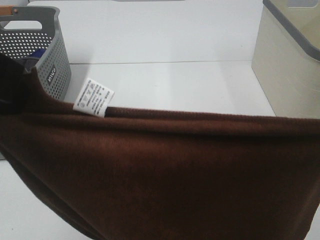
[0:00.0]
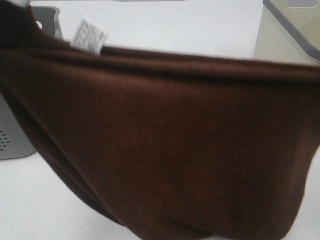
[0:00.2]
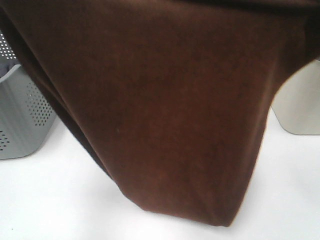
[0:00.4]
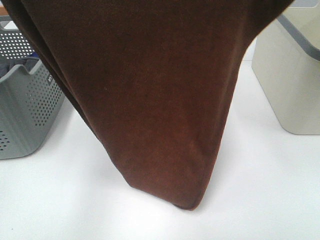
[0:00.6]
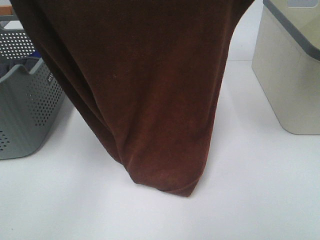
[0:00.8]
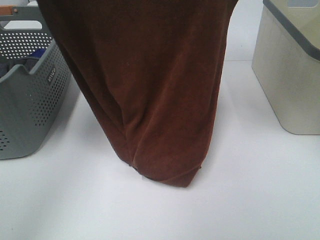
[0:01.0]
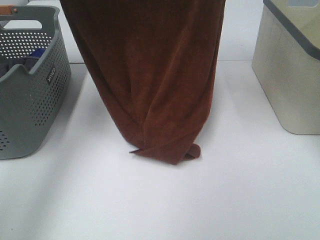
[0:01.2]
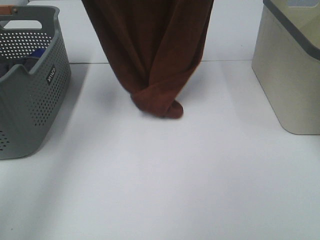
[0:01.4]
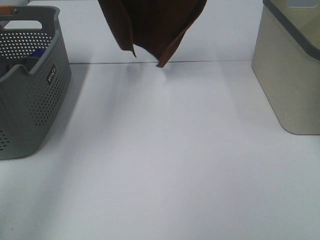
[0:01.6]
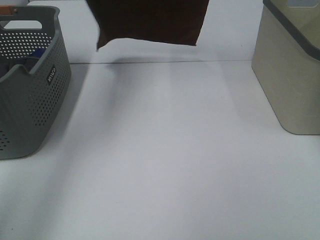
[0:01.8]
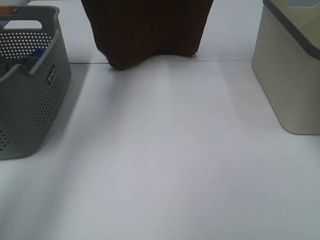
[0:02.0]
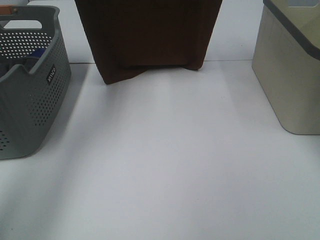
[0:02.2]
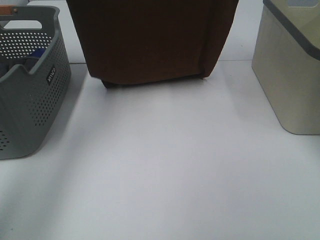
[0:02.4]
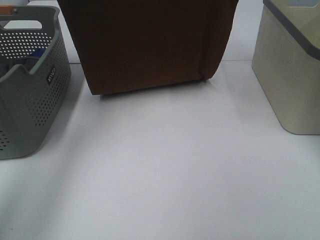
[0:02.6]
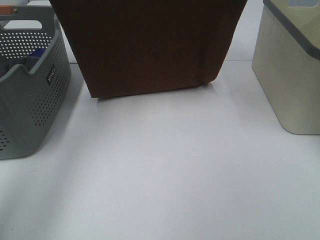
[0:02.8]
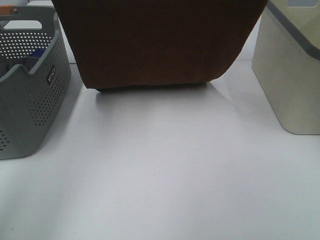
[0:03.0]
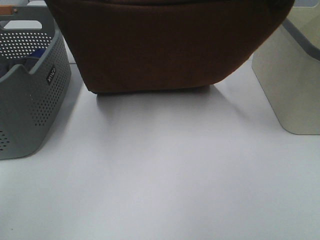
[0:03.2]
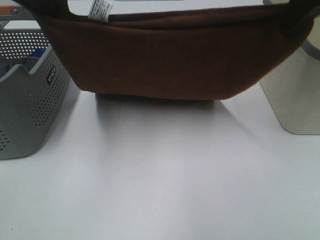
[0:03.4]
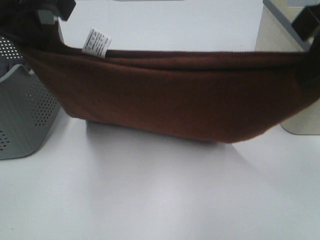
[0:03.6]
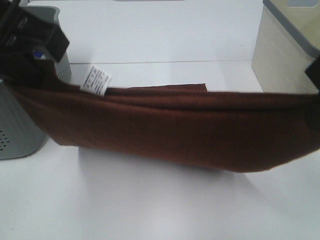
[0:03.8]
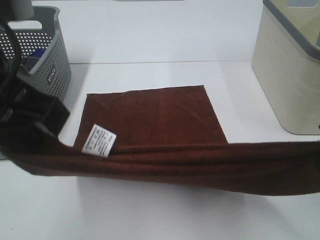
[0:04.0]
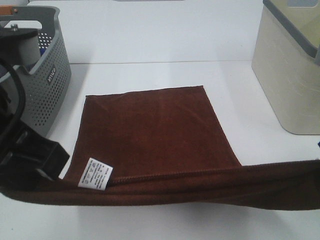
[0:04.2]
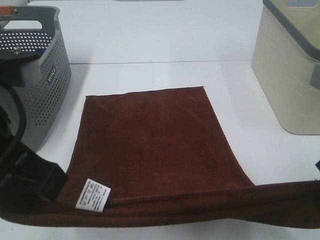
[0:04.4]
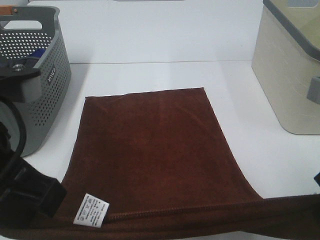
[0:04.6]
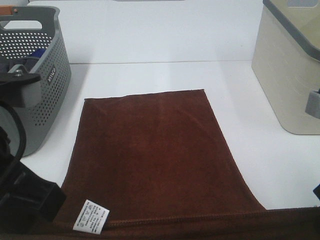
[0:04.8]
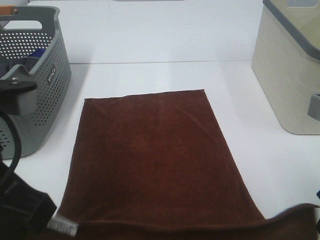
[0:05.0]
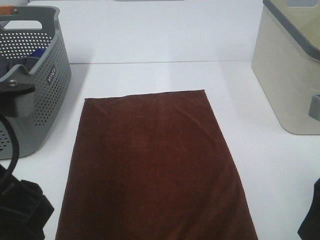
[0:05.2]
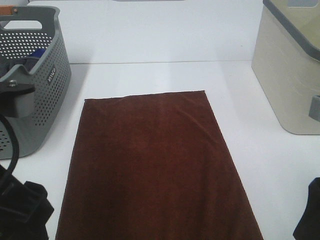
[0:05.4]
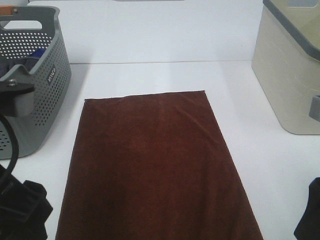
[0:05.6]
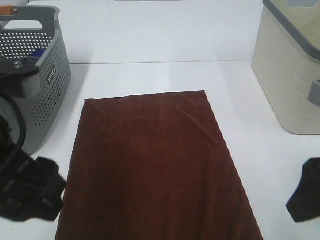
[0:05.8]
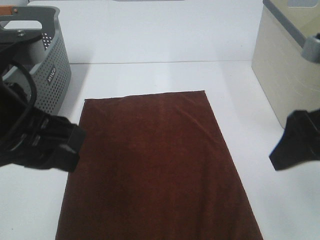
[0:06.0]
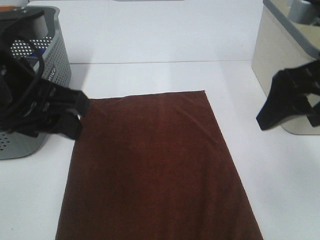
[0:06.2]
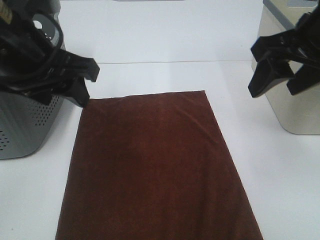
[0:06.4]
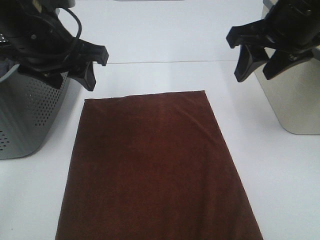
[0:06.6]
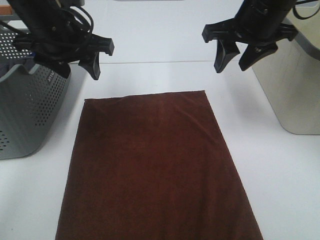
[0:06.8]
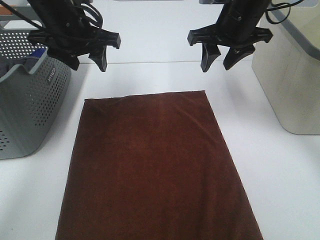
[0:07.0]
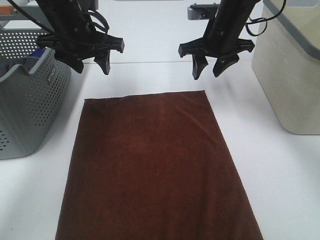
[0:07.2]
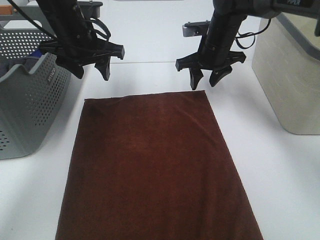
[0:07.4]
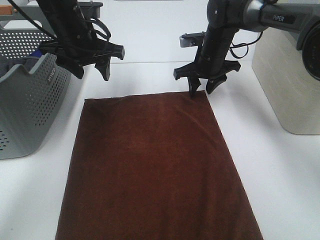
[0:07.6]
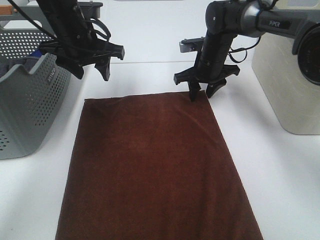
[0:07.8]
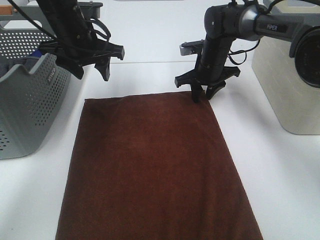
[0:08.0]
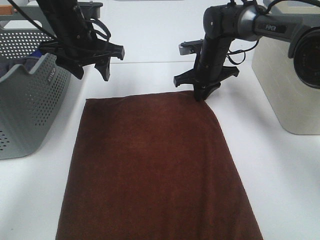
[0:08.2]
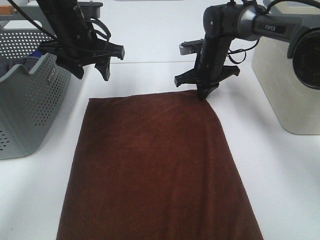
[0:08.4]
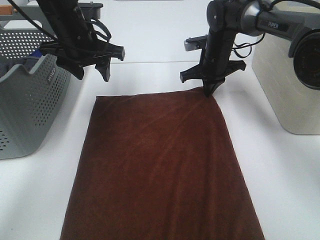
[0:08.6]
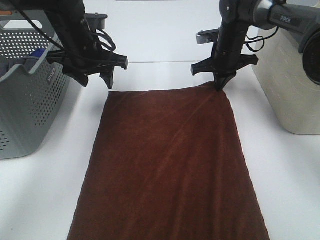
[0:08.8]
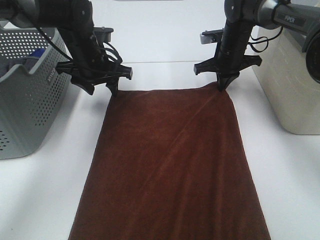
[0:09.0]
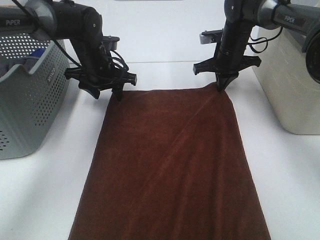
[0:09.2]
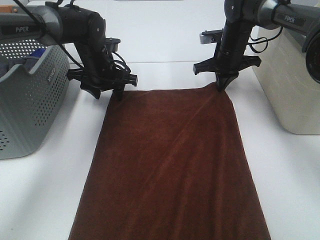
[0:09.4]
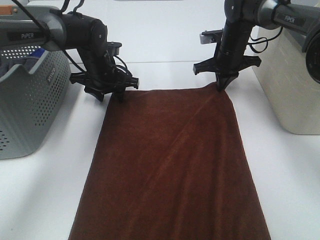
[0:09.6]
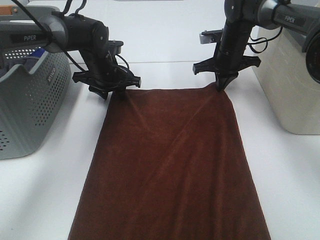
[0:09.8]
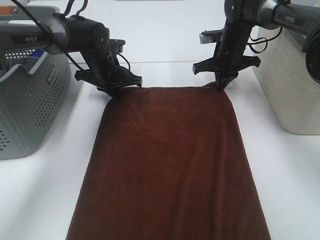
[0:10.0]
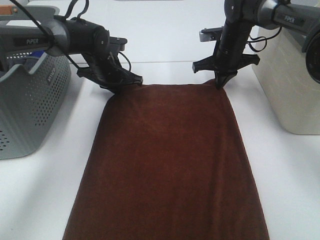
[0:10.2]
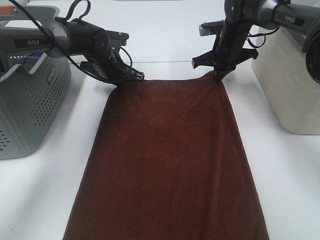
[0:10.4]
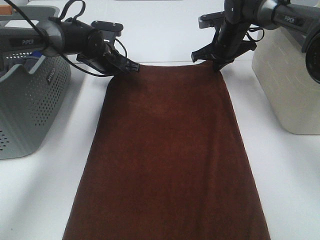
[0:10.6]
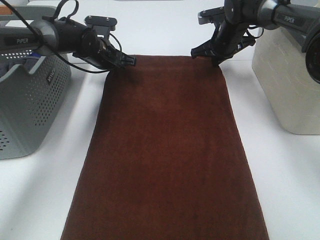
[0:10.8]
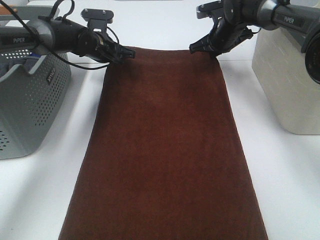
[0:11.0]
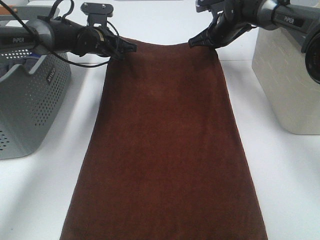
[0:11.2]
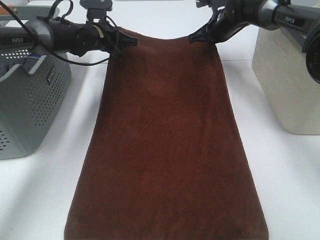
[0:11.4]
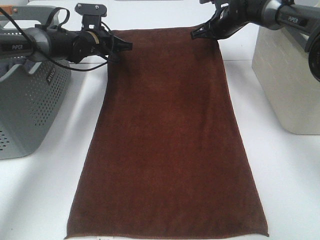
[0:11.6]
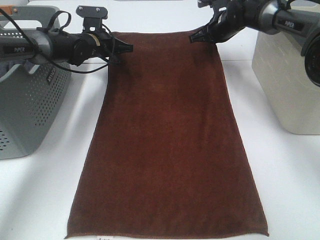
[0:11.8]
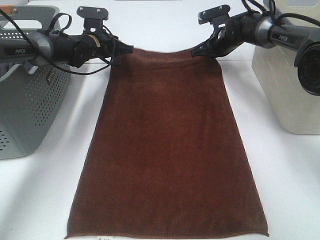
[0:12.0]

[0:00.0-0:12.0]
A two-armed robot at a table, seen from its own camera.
Task of the whole recording: Remove the towel and place it.
Step, 0:01.4 to 0:06.6: Left hand:adjust the brown towel.
Step, 0:01.4 to 0:06.6: Right hand:adjust the brown towel.
0:00.0 to 0:01.6: The two grippers go approximately 35 cm forward and upward.
0:01.6 to 0:03.0: Both grippers move downward, roughly 15 cm.
0:03.0 to 0:04.4: Both grippers travel together backward and downward, roughly 25 cm.
0:04.4 to 0:06.0: The left gripper opens its fingers; the right gripper opens up.
0:06.0 to 0:07.6: The left gripper travels forward by approximately 25 cm. The right gripper travels forward and downward by some 35 cm, and closes its fingers.
0:07.6 to 0:09.0: The right gripper changes place by approximately 5 cm, and closes. The left gripper heads downward, covering about 5 cm.
0:09.0 to 0:10.4: The left gripper travels forward by roughly 5 cm, and closes.
0:10.4 to 0:12.0: The right gripper moves roughly 5 cm, while the left gripper ends up approximately 5 cm from where it was, and opens up.

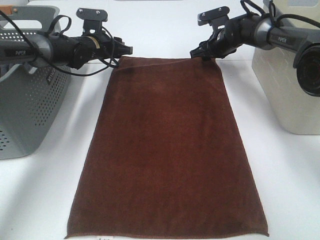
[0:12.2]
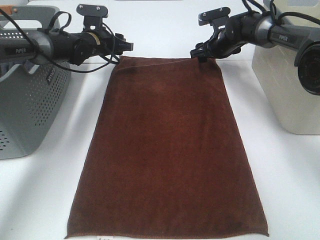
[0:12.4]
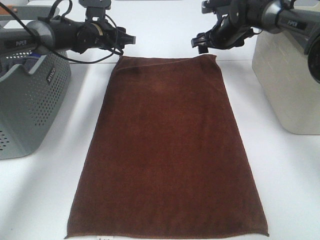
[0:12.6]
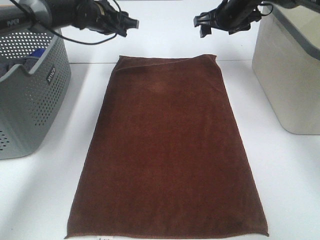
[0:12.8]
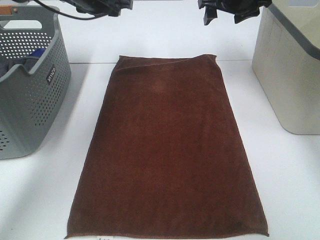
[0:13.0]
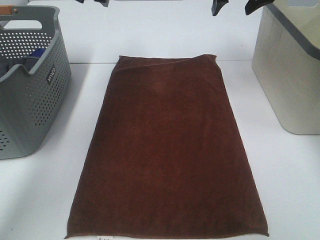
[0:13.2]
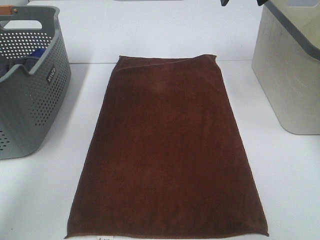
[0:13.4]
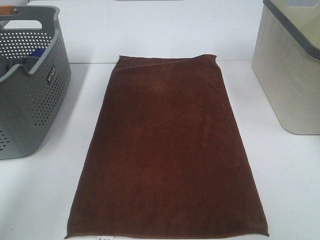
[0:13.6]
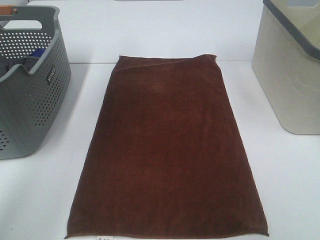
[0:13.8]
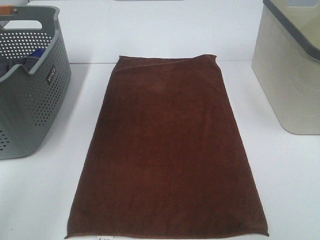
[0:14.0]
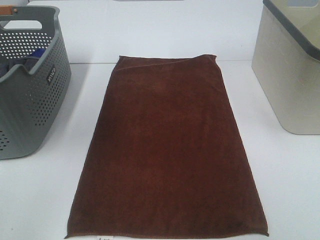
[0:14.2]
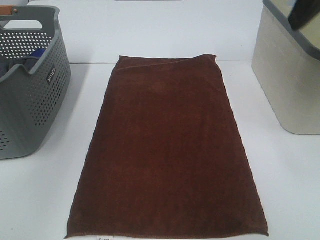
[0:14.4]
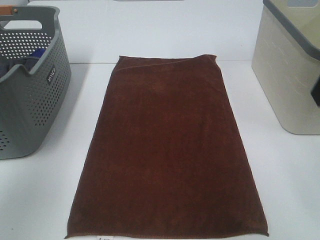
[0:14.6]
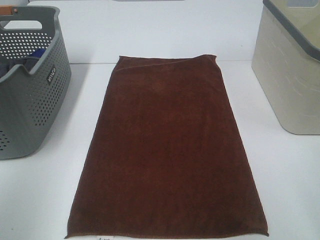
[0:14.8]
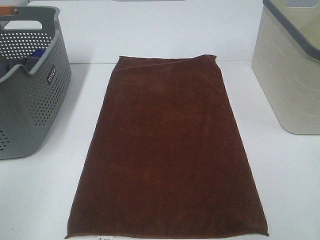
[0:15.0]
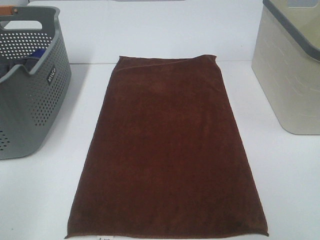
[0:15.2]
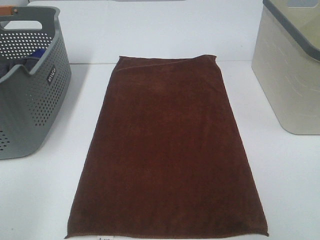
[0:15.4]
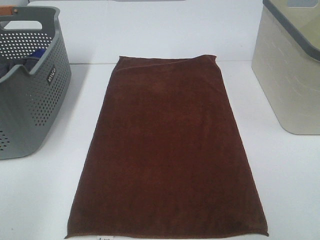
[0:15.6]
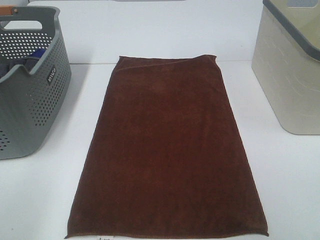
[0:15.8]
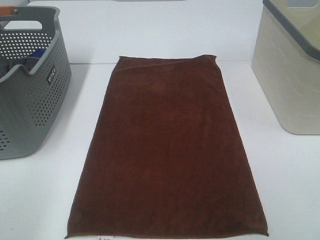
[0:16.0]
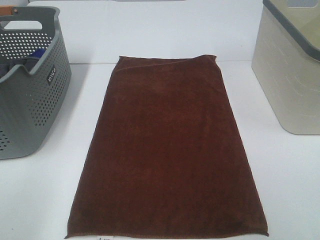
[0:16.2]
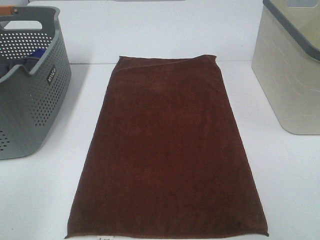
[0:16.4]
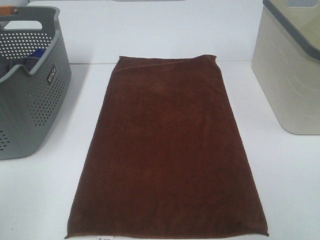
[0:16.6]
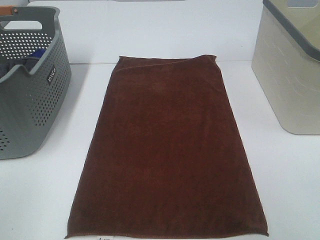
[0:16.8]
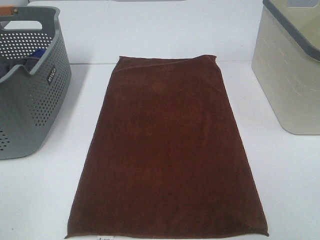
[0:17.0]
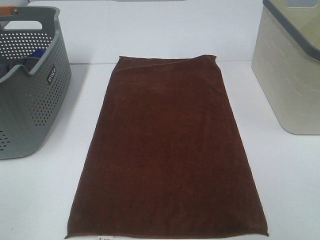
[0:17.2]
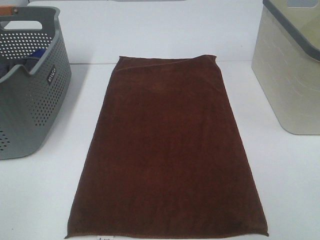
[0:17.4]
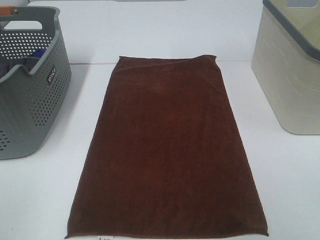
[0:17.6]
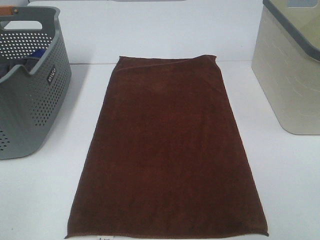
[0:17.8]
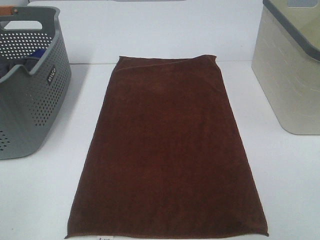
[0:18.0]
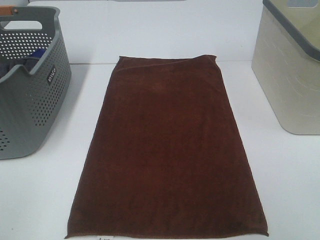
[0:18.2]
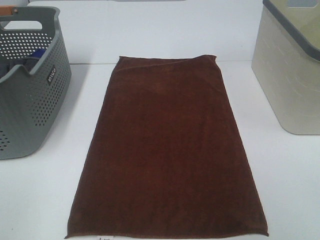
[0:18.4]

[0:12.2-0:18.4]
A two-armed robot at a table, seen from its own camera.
Task of the whole recording: Remove the towel and place it.
0:12.2 to 0:13.8: The grippers both shift upward and backward by roughly 35 cm.
0:13.8 to 0:15.4: The left gripper heads backward, covering approximately 35 cm.

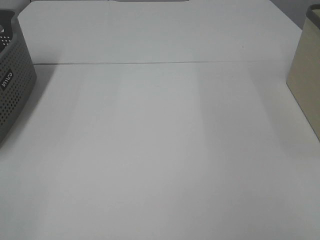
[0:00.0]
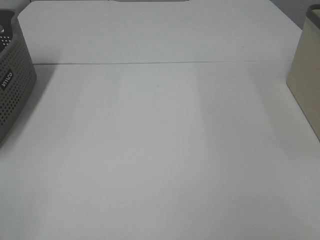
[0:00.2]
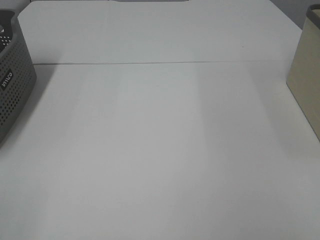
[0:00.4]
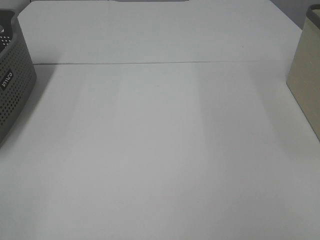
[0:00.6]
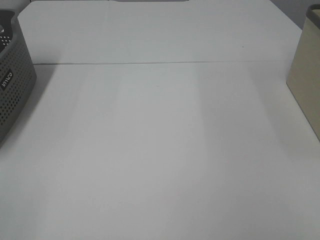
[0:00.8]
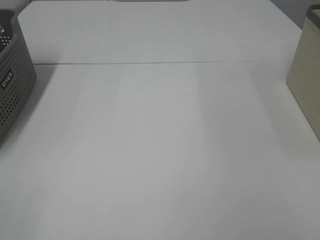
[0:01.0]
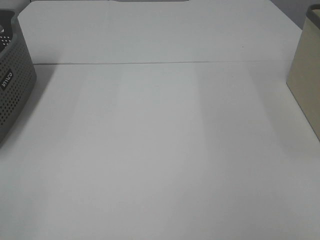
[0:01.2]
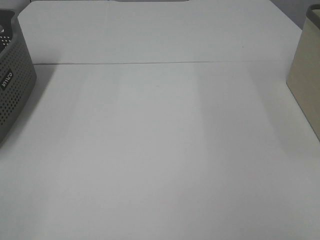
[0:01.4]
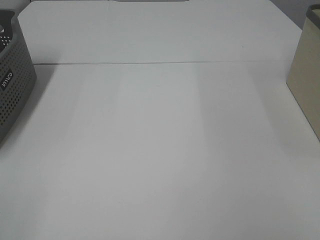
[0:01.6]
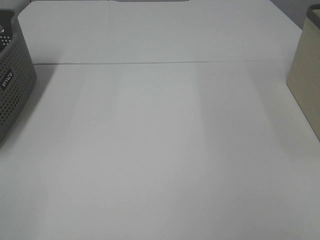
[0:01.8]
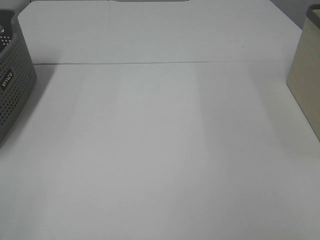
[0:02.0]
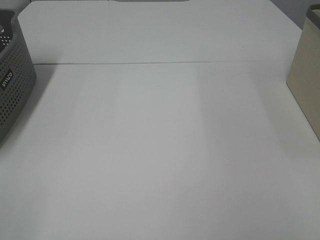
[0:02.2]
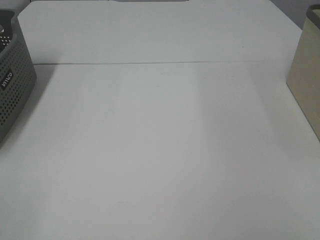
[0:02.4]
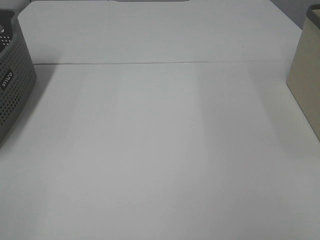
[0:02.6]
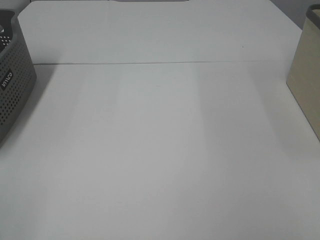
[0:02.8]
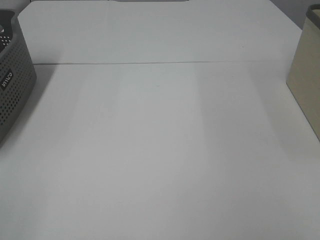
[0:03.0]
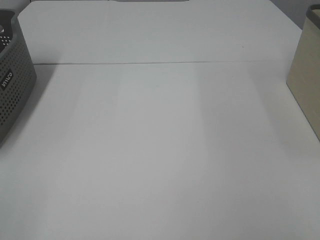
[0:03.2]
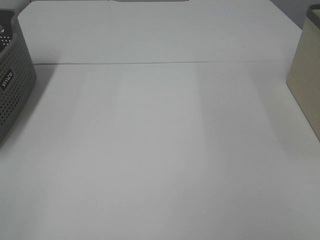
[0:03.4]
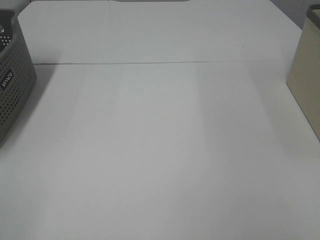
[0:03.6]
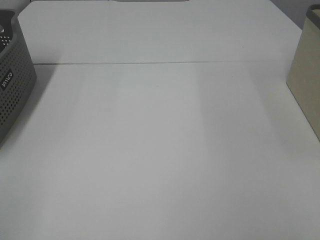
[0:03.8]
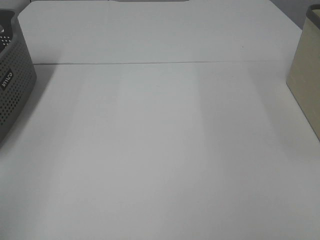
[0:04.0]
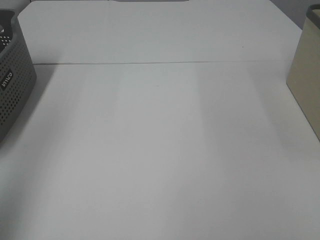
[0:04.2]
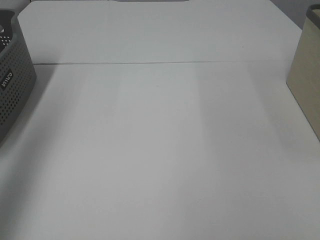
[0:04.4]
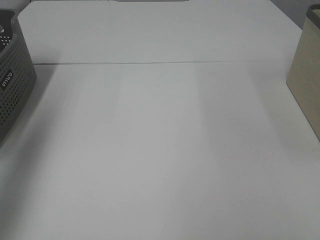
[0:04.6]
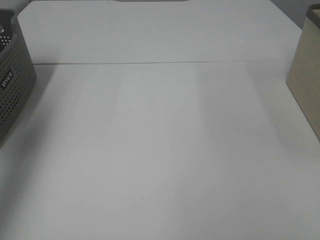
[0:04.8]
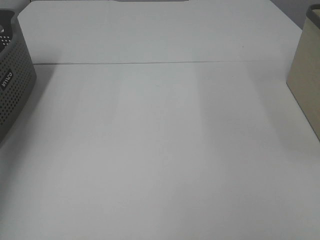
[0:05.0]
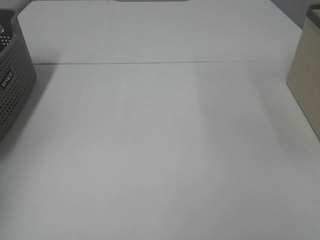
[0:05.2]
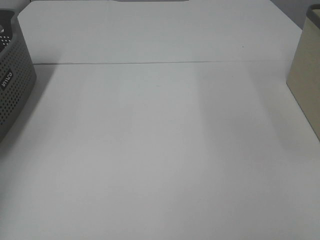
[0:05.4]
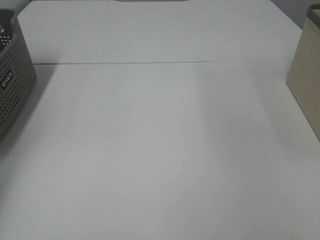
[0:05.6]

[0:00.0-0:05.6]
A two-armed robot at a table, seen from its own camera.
Task of the whole recording: Remove the towel and place it.
0:00.0 to 0:02.8: Neither gripper changes place.
0:02.8 to 0:04.2: The left gripper is displaced forward and upward by roughly 15 cm.
0:04.2 to 0:05.6: The left gripper moves forward, downward and to the left, about 35 cm.
